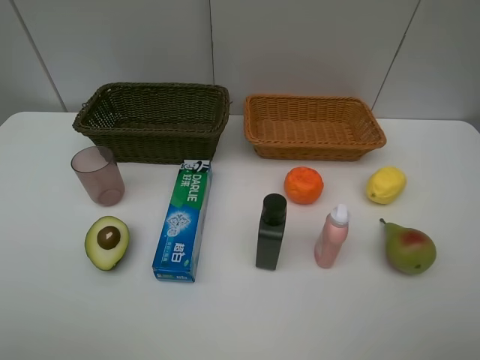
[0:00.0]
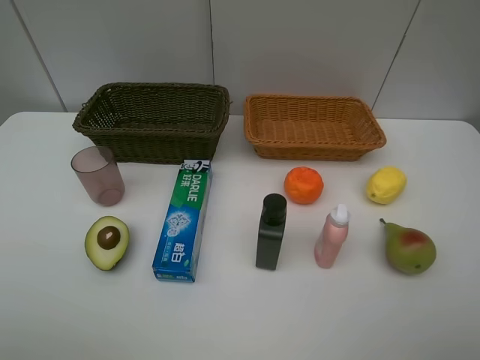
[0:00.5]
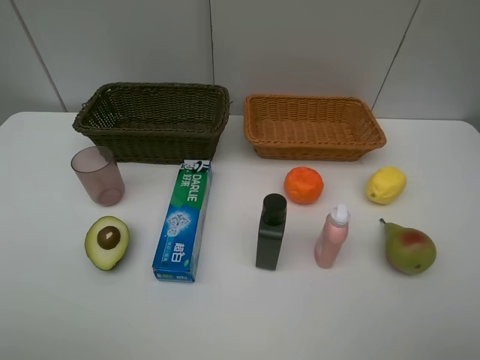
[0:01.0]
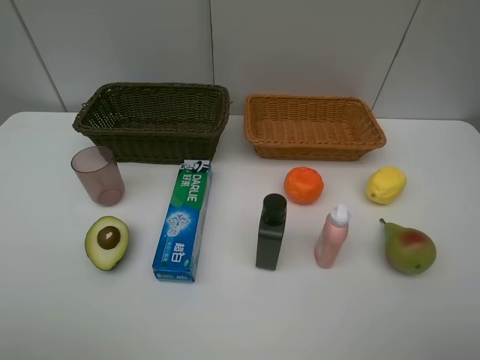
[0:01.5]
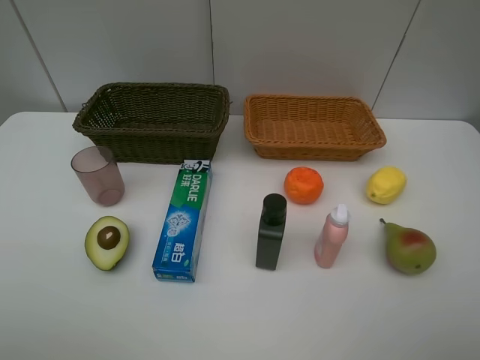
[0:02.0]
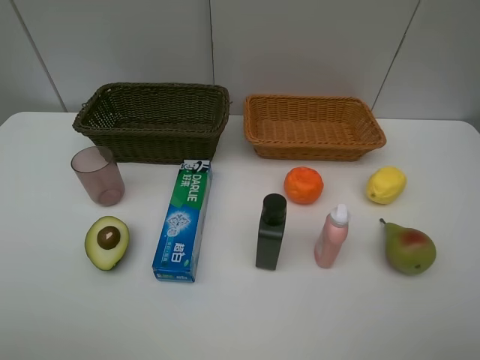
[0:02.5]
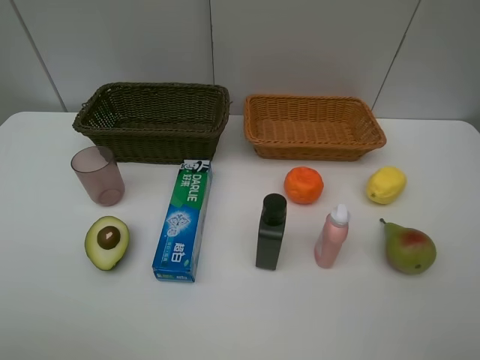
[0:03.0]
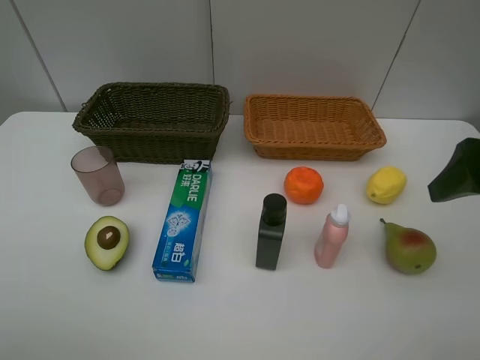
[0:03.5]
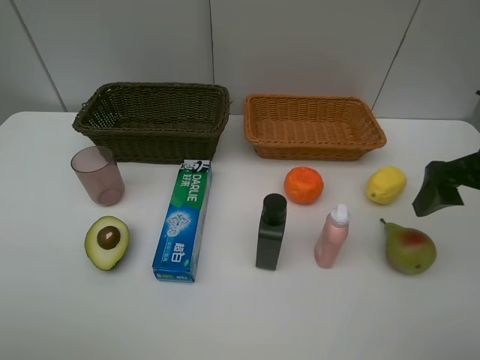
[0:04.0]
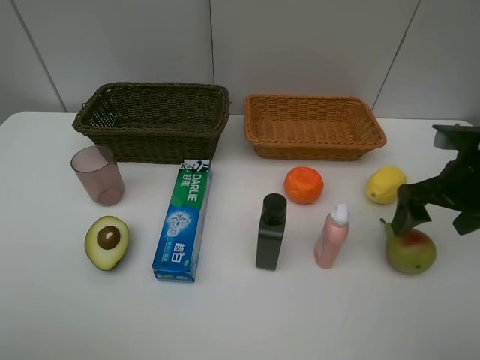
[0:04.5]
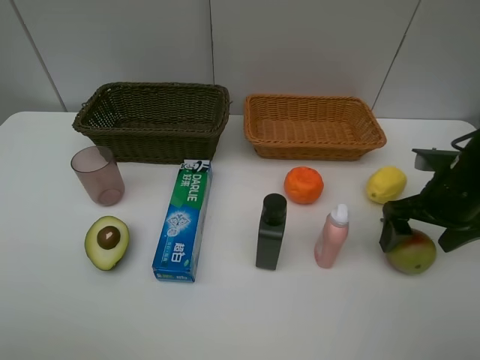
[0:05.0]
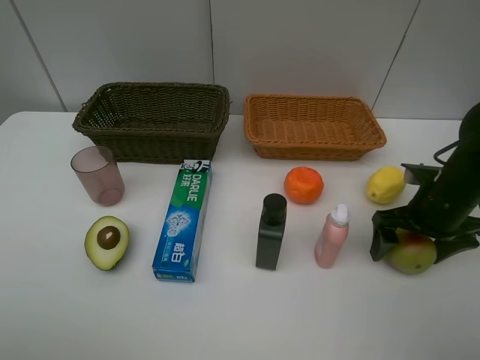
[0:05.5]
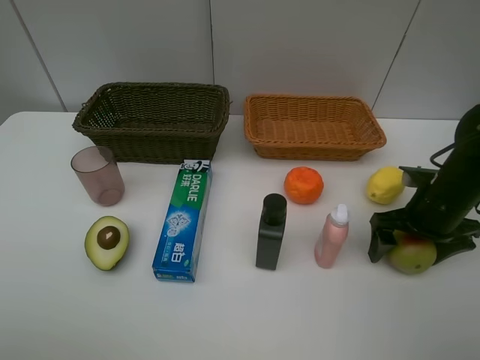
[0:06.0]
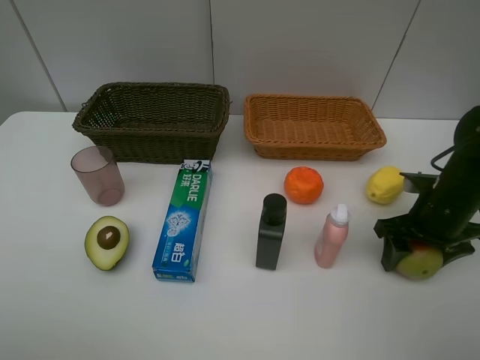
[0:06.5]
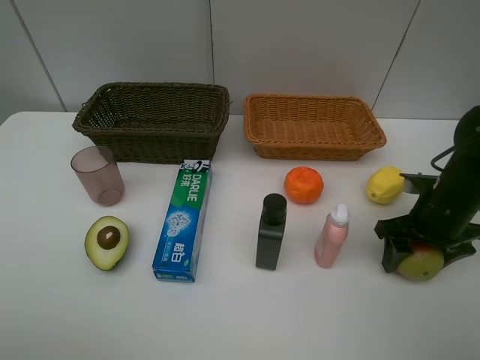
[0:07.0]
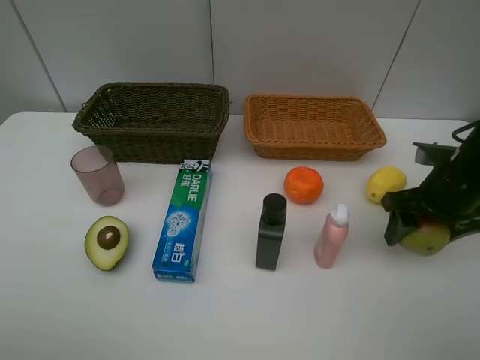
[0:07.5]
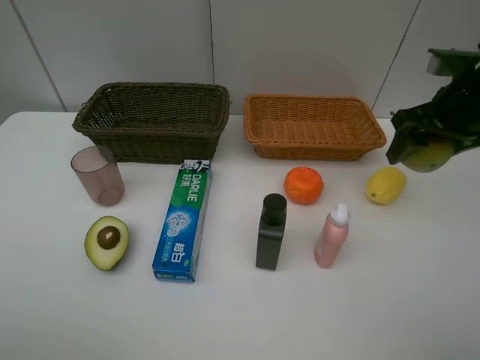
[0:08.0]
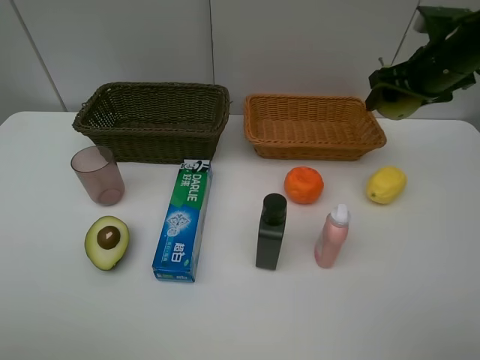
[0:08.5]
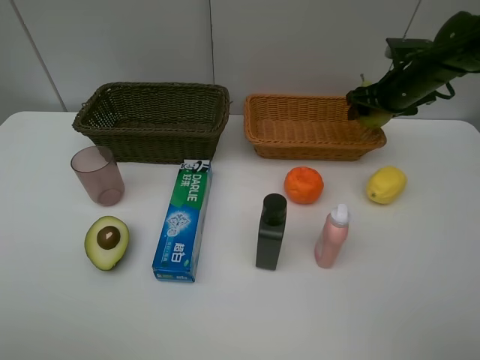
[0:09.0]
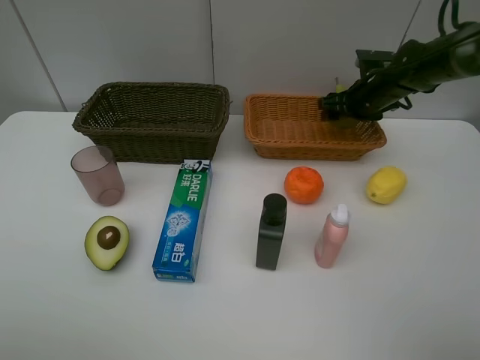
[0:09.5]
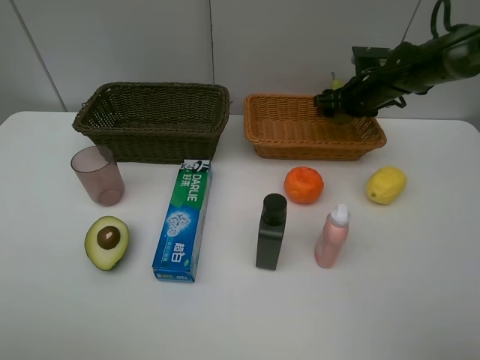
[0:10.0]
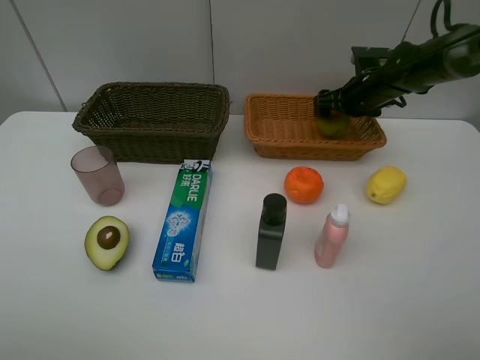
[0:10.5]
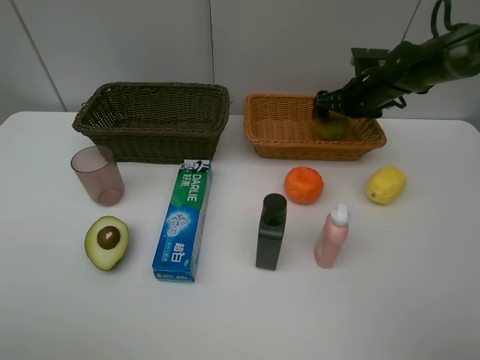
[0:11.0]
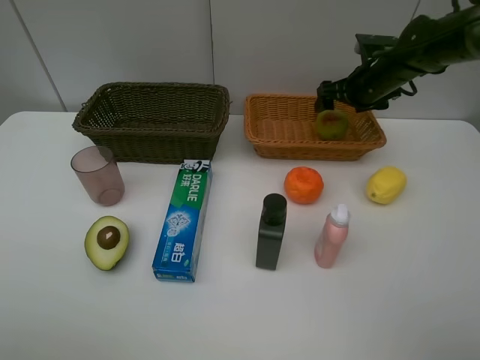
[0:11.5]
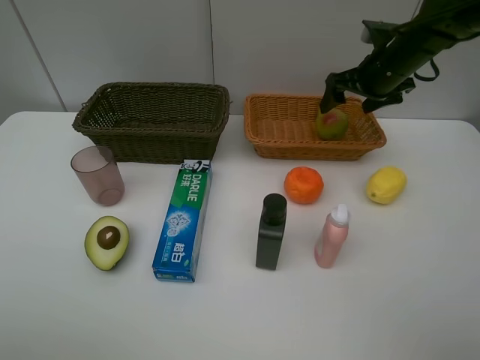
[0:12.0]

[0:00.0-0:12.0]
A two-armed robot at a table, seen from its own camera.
Task of the whole recording: Place multiple objects separately in different baskets.
Step, 0:00.0 to 0:07.5: Pick up the pear with right gripper.
Step, 0:08.0 to 0:11.5: Place the pear in the light basket with right gripper.
0:00.0 to 0:02.0: Both grippers stay put.
0:02.0 to 0:04.0: The right gripper goes some 20 cm forward.
0:04.0 to 0:06.0: The right gripper goes some 10 cm downward.
0:06.0 to 0:08.0: The right gripper goes some 15 cm upward, and closes its fingers.
0:08.0 to 0:10.0: The right gripper travels forward and downward by roughly 20 cm.
0:10.0 to 0:12.0: The right gripper moves upward and backward, approximately 10 cm.

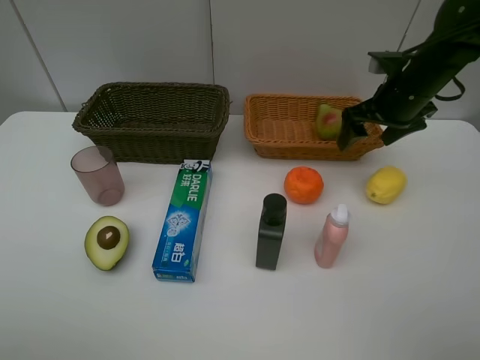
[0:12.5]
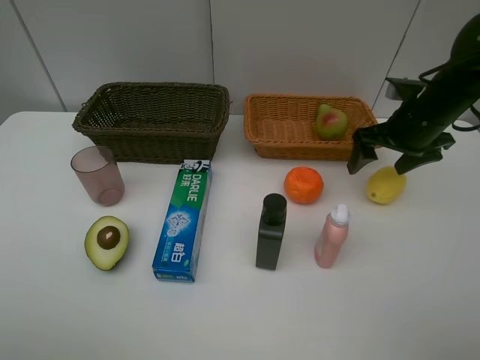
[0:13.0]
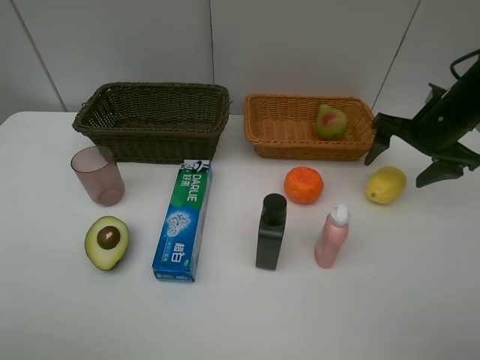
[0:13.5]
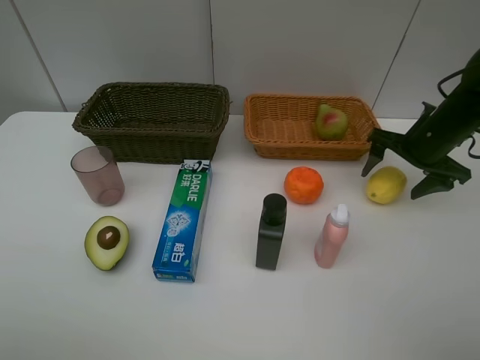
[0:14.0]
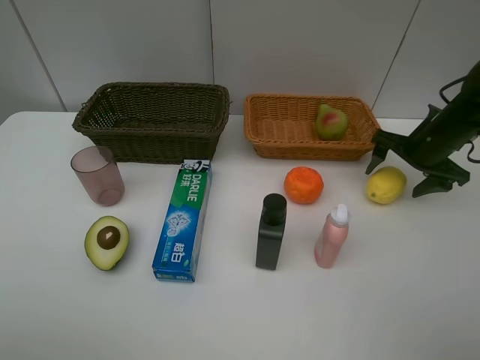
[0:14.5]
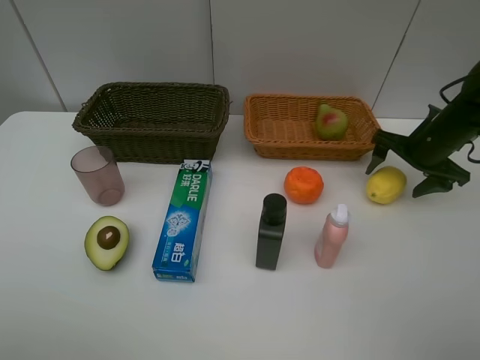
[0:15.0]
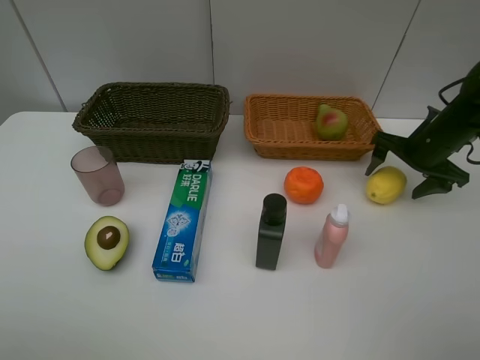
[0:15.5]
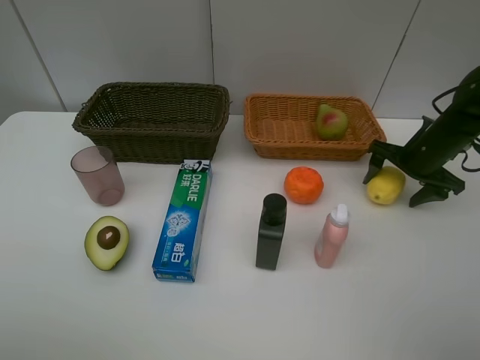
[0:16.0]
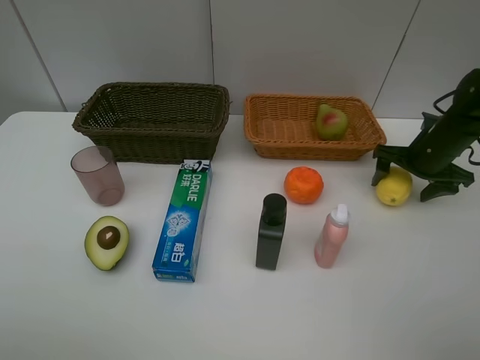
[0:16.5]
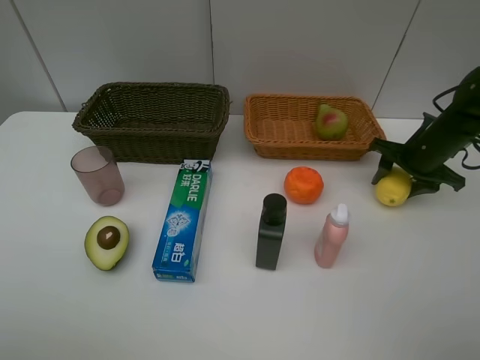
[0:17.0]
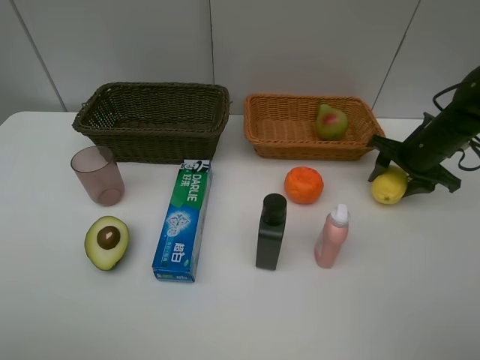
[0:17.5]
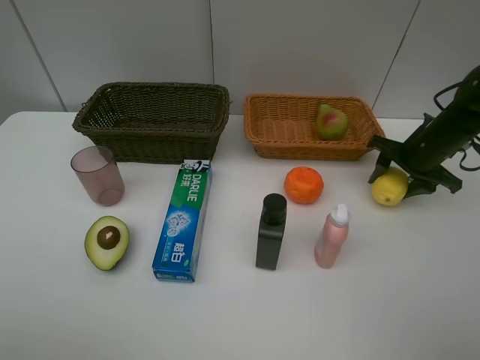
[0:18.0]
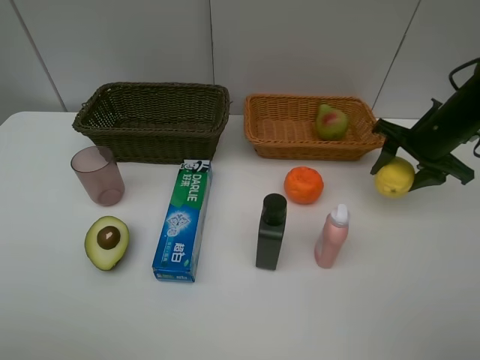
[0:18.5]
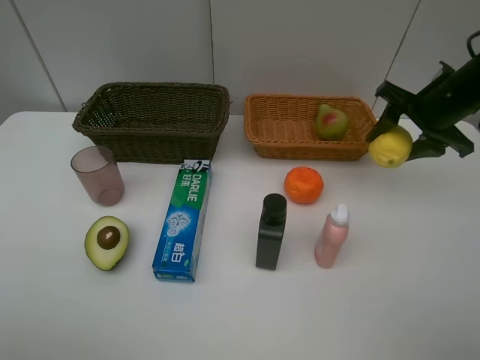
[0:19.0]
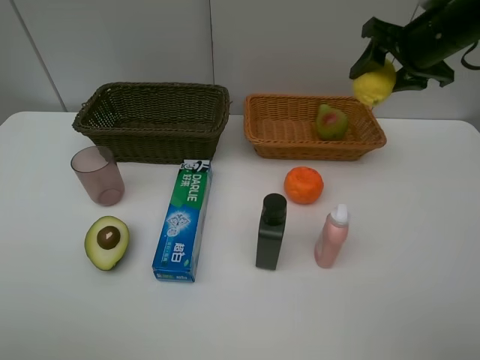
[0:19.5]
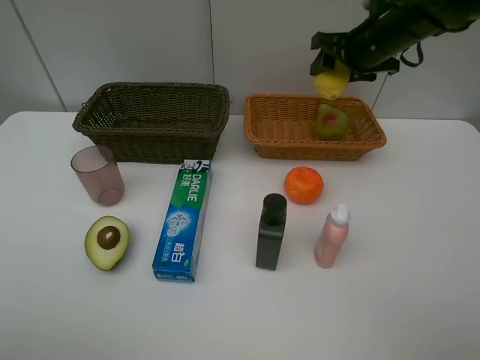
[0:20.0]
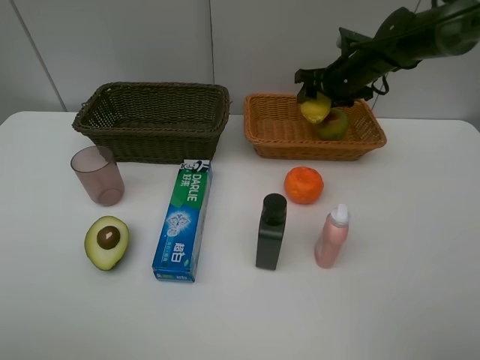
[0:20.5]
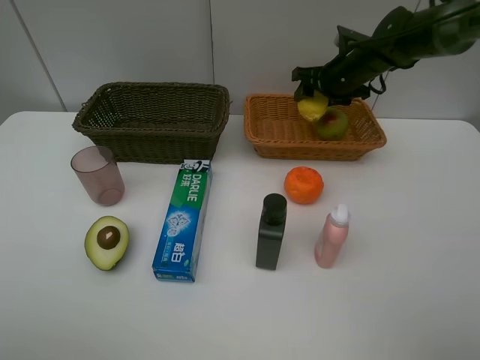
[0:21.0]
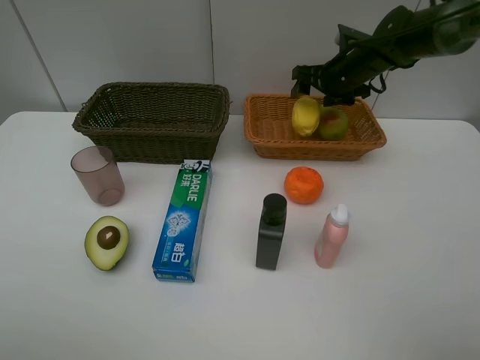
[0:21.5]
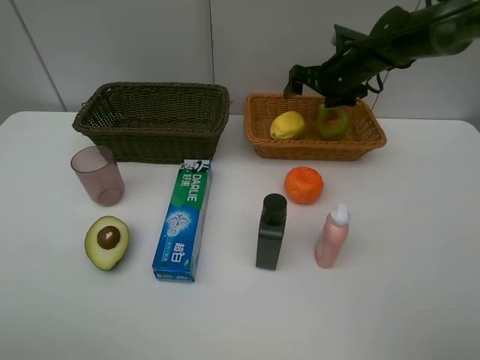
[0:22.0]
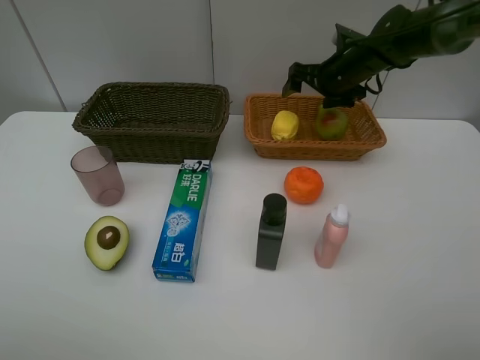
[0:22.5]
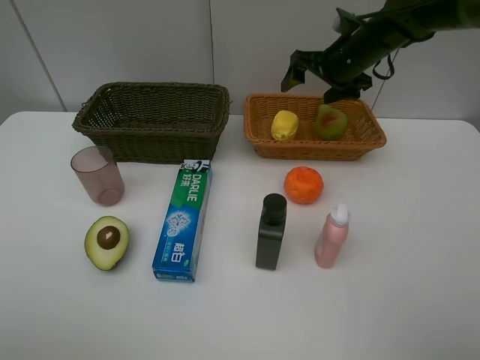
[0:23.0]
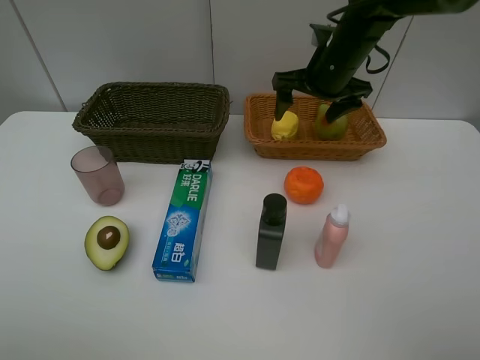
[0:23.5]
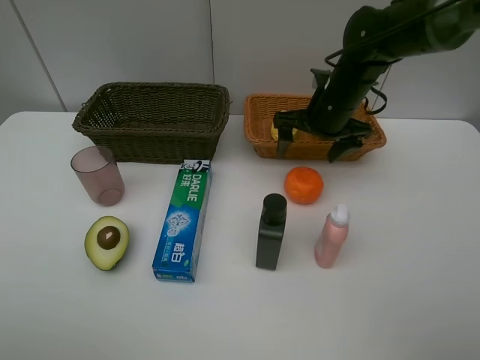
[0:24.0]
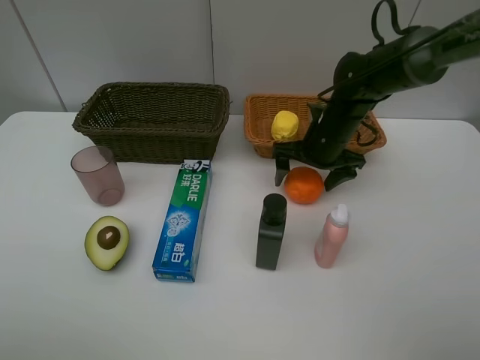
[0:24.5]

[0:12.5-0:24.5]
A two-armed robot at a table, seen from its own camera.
Task of the whole recording: Place multiple objects separately in different baskets.
Step, 0:12.5 to 0:18.0: Pick up the lemon with right gripper.
Step, 0:18.5 to 0:21.5: Place the lemon in the light basket with right gripper.
0:12.5 to 0:14.5: The right gripper shifts some 10 cm downward and to the right.
0:14.5 to 0:16.5: The grippers move only a little.
0:16.5 to 0:18.5: The right gripper travels upward by roughly 5 cm, and closes up.
0:18.5 to 0:20.5: The right gripper heads forward and to the left, covering about 15 cm.
0:20.5 to 0:22.5: The right gripper opens.
0:22.5 to 0:24.5: The right gripper is displaced backward and downward by about 10 cm.

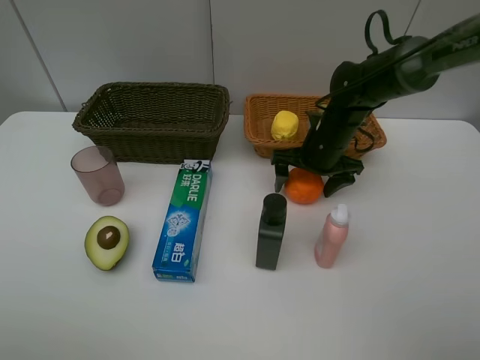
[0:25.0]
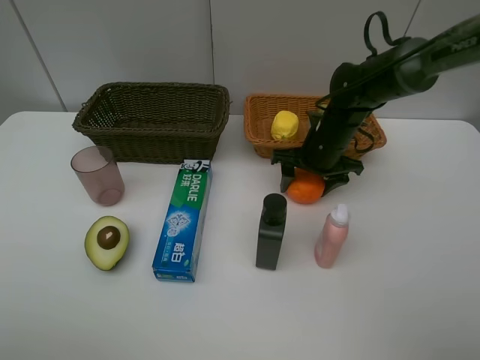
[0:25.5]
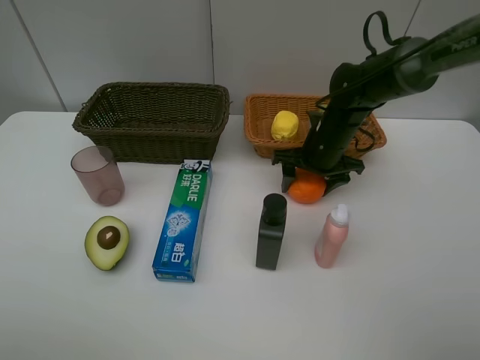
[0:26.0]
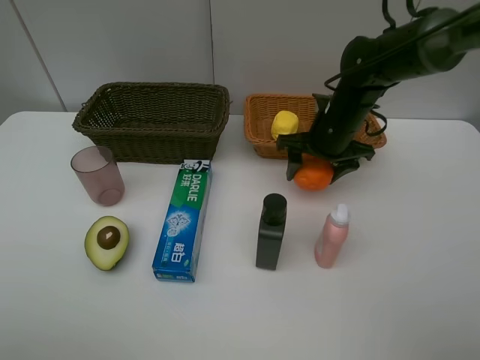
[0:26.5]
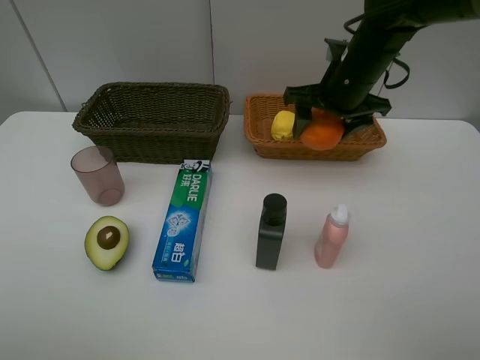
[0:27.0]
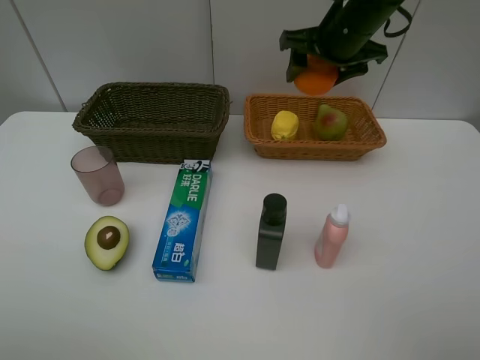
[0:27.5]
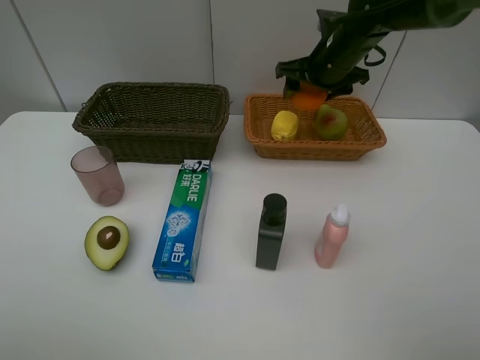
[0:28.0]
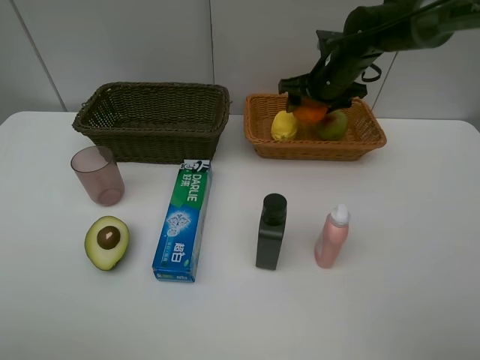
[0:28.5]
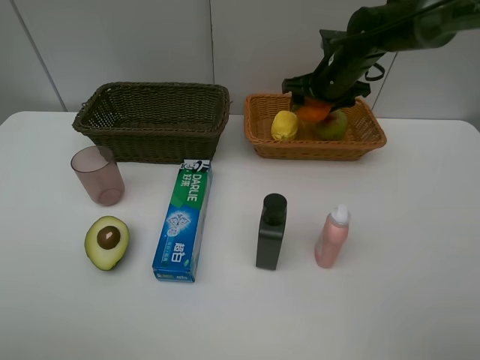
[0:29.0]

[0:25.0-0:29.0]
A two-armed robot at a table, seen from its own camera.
Task of the whole recording: Place multiple objects separately in different baskets.
0:25.0 to 0:27.0: The right gripper heads upward, covering some 10 cm, and closes.
0:27.0 to 0:29.0: The right gripper is displaced forward by roughly 10 cm.
